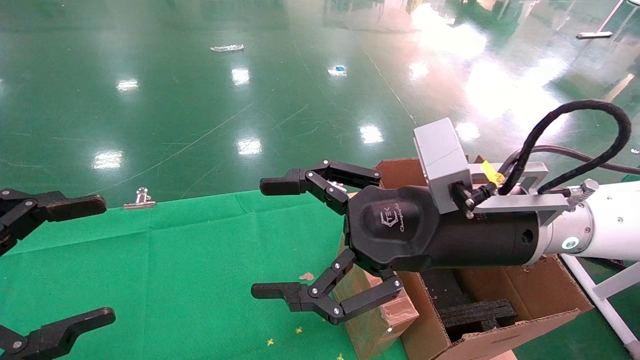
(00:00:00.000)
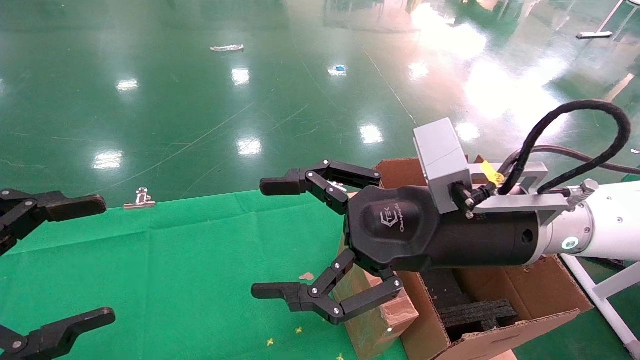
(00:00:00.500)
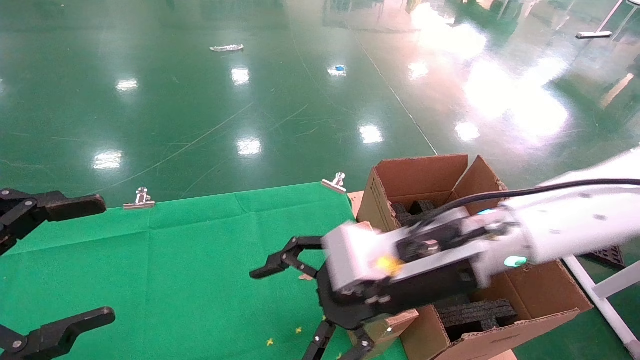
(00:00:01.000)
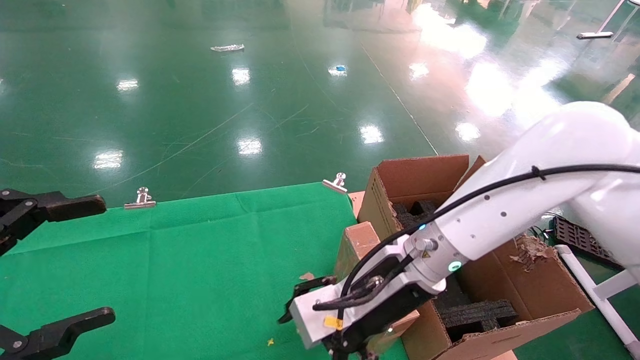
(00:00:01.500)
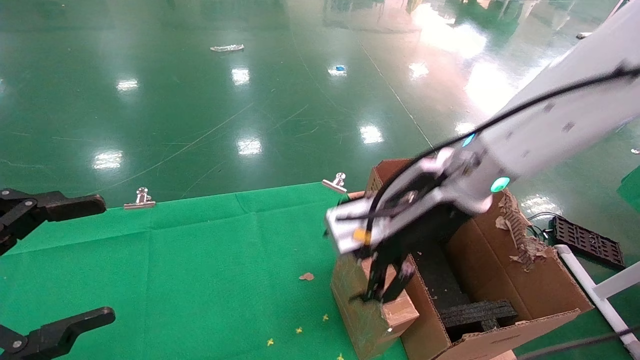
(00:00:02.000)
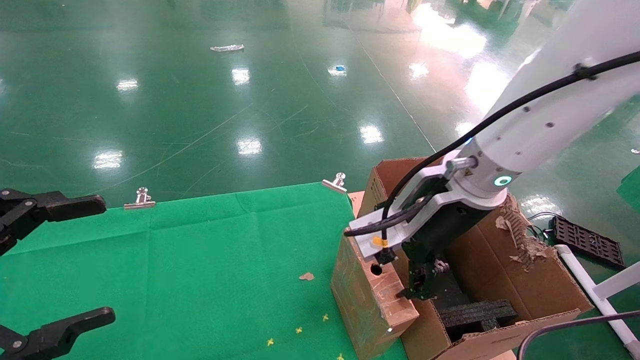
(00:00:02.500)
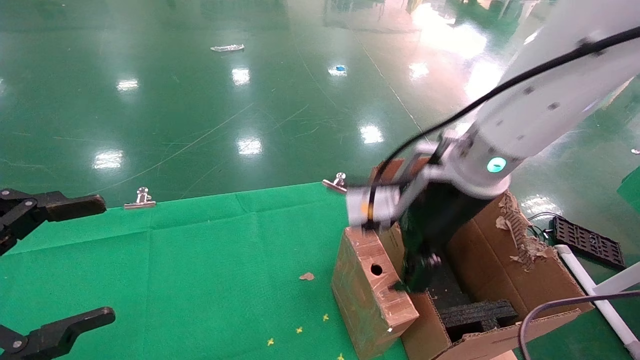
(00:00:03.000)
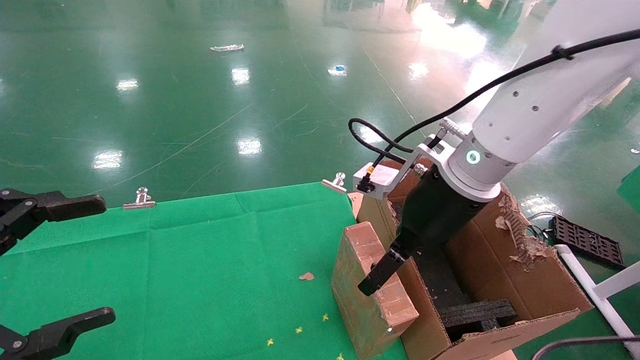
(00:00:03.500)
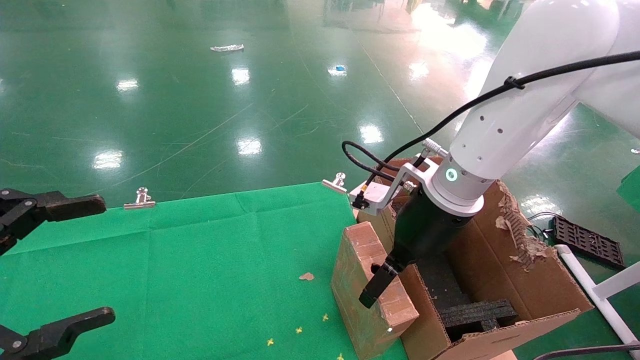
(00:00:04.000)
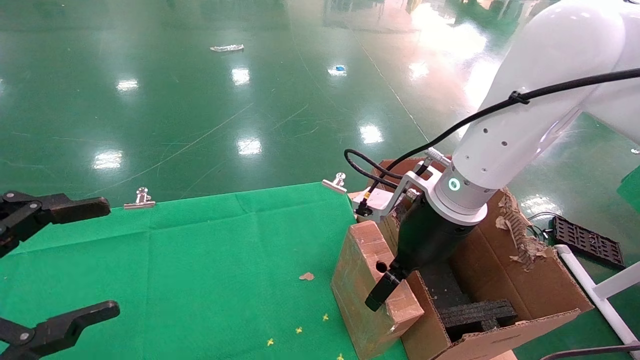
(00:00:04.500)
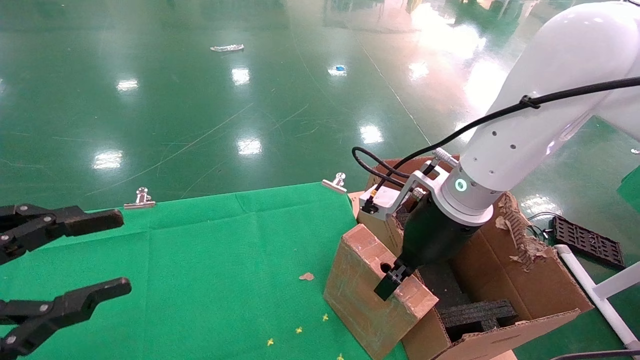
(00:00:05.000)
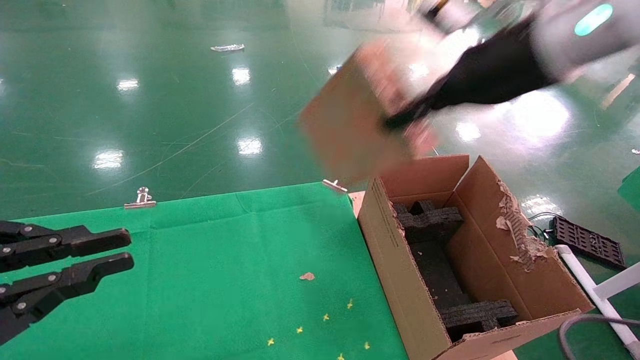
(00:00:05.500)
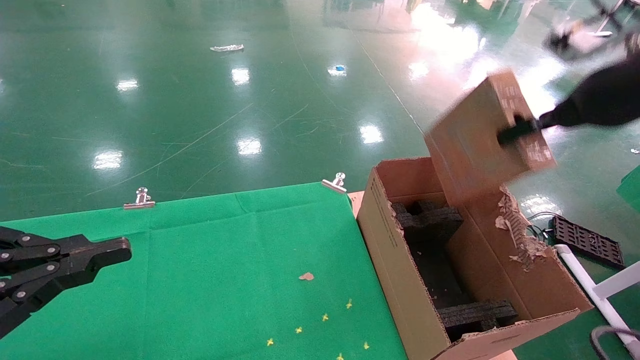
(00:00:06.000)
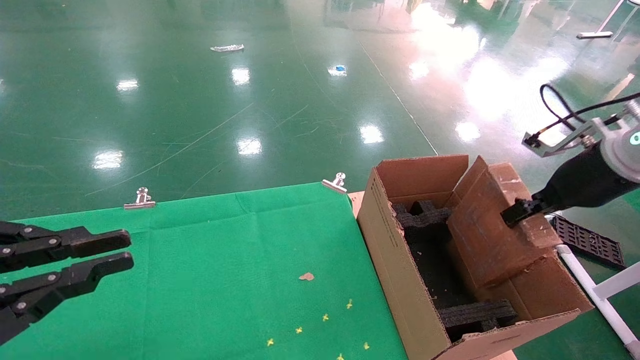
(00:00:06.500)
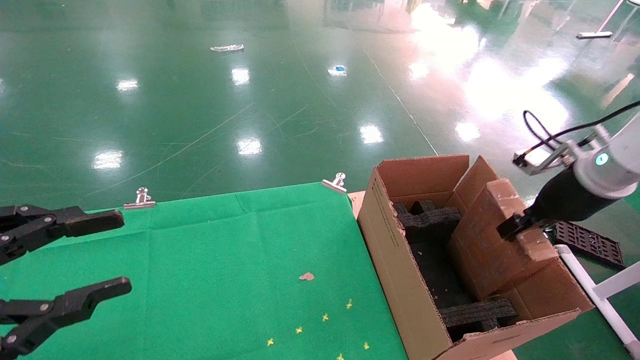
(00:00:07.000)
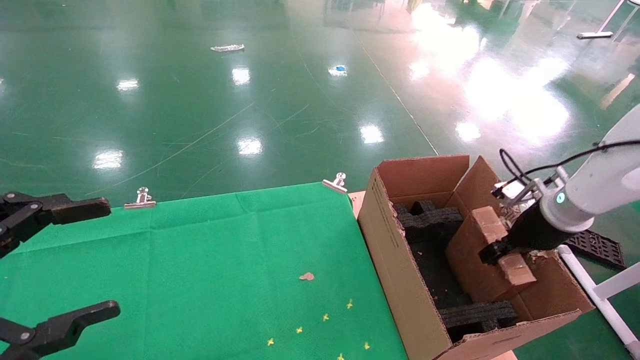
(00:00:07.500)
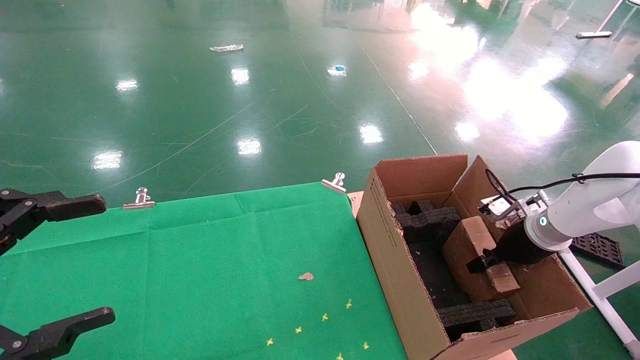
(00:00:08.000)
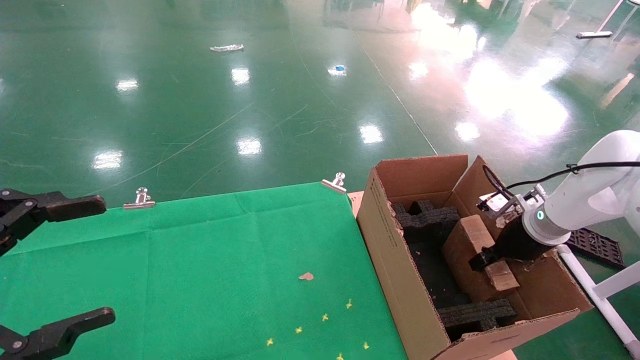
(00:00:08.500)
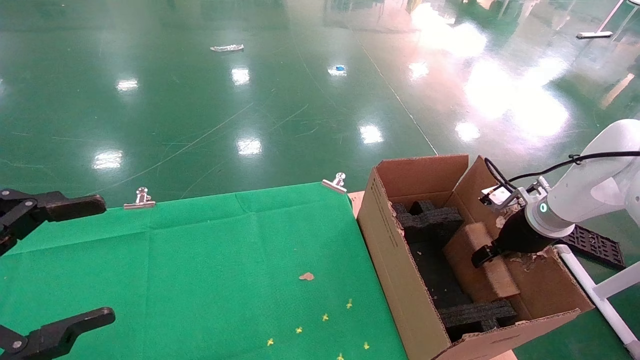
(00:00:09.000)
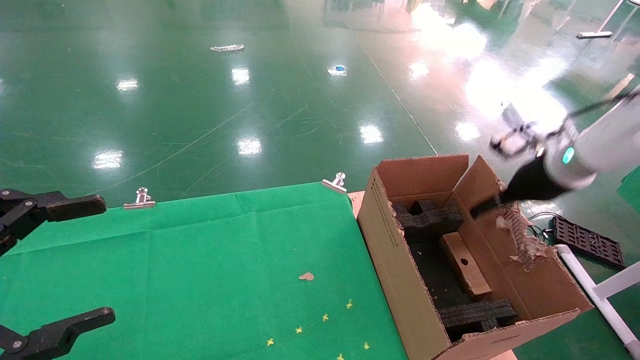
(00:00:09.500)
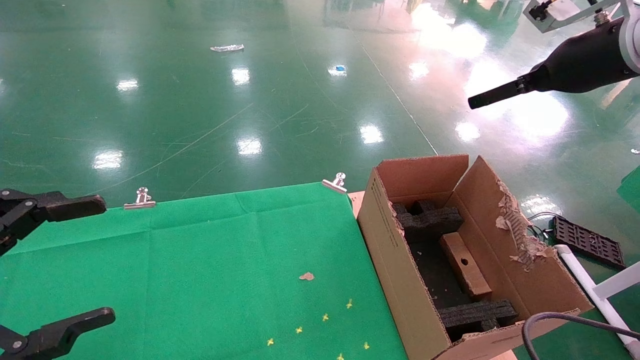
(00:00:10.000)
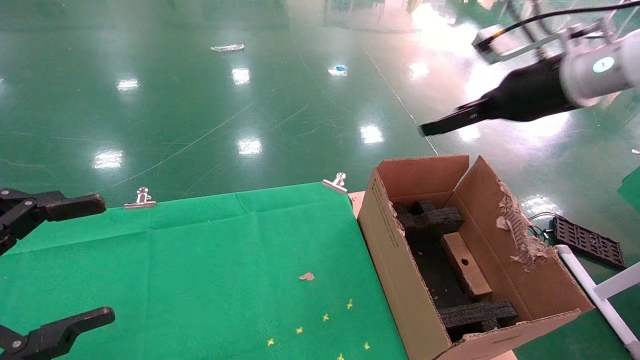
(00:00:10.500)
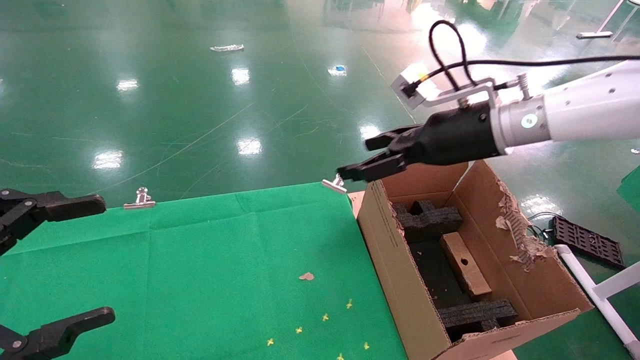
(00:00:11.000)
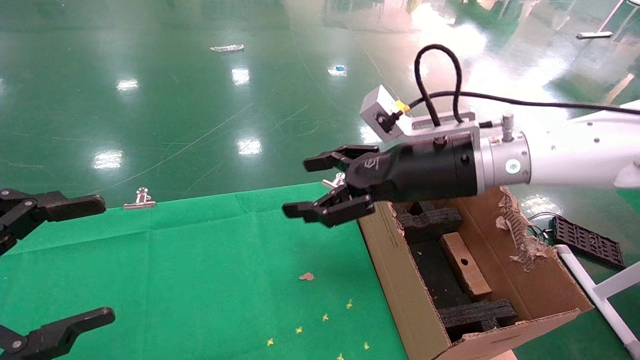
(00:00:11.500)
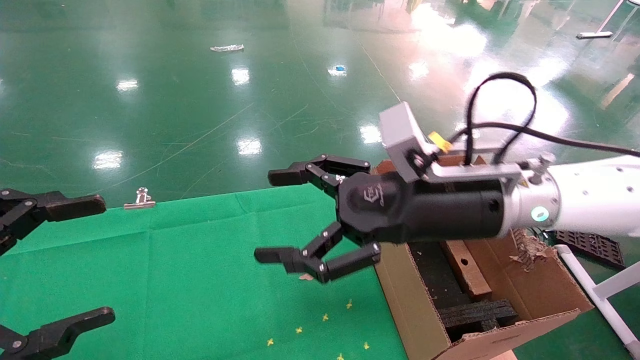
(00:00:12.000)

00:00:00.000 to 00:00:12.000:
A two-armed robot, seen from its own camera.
Task of the whole recording: using a robotic arm to pick up a cardboard box and palace it the carton.
Step, 00:00:01.000 to 00:00:05.000: Pick up the mouse and the power cord paper box.
Step, 00:00:05.500 to 00:00:09.500: Place the mouse and the power cord paper box into the container.
00:00:00.000 to 00:00:02.000: The right gripper moves forward, approximately 5 cm, and goes downward and returns, approximately 5 cm each way.
00:00:04.000 to 00:00:06.000: The right gripper goes some 25 cm to the right and upward, and closes its fingers. Meanwhile the left gripper closes its fingers.
00:00:06.000 to 00:00:08.000: The right gripper is displaced downward and forward by about 25 cm, while the left gripper opens up.
00:00:08.000 to 00:00:10.000: The right gripper heads upward, covering approximately 25 cm, and opens up.
00:00:10.000 to 00:00:12.000: The right gripper goes approximately 25 cm to the left and downward.

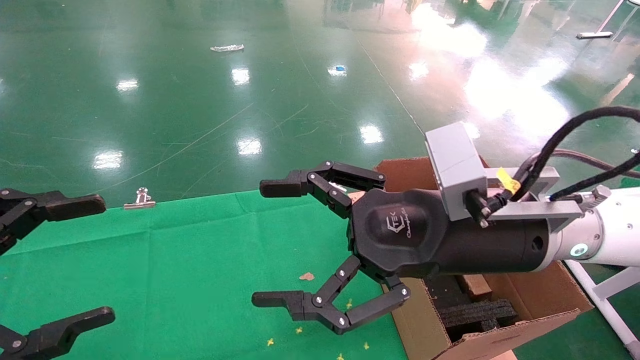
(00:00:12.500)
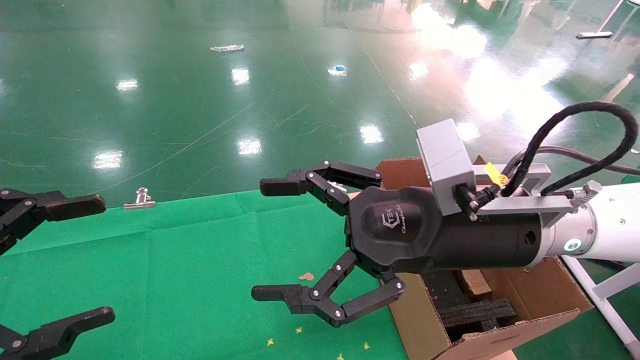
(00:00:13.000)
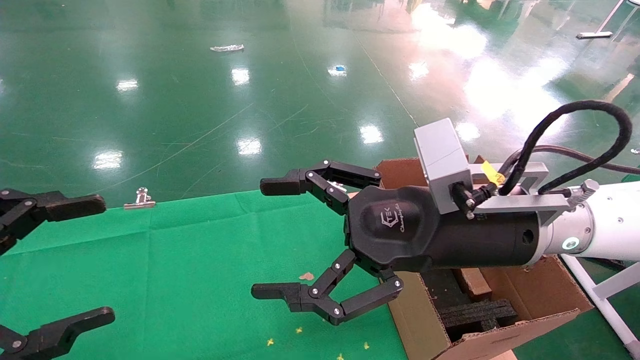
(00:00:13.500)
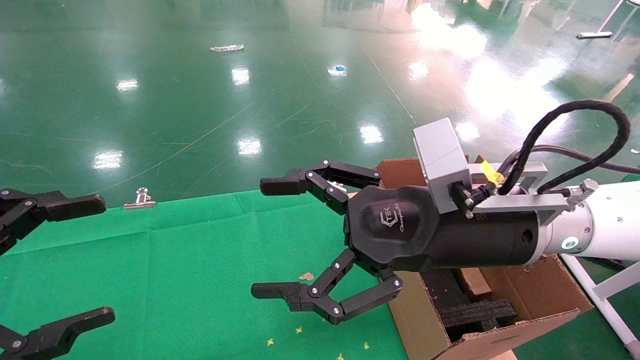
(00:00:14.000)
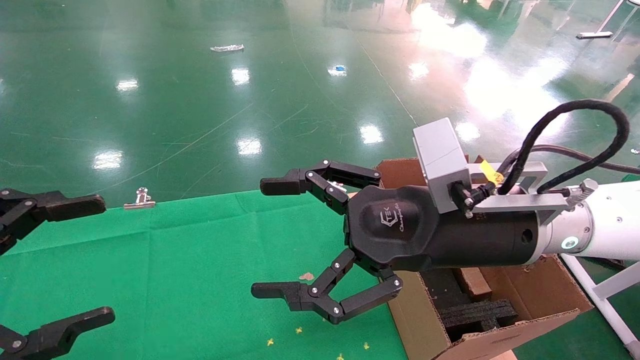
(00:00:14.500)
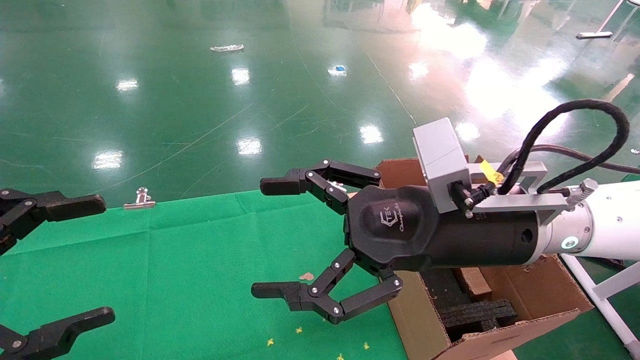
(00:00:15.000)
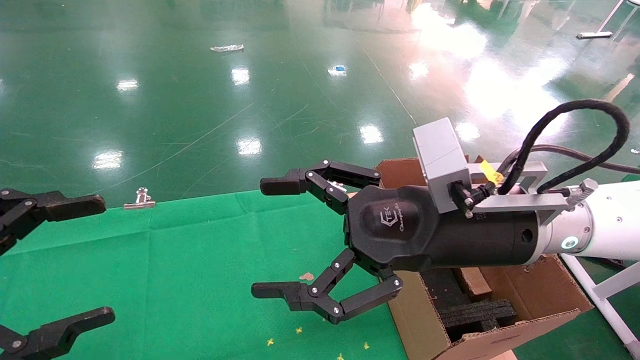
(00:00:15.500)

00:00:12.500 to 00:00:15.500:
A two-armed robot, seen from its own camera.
Task of the whole recording: using a robotic arm to pick up a cardboard box and palace it the carton.
00:00:12.500 to 00:00:15.500: The two grippers keep their place.
